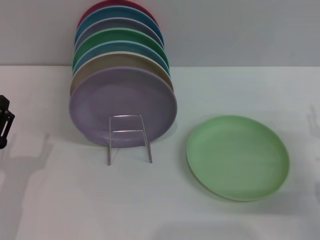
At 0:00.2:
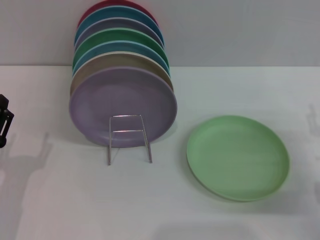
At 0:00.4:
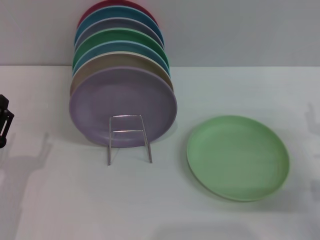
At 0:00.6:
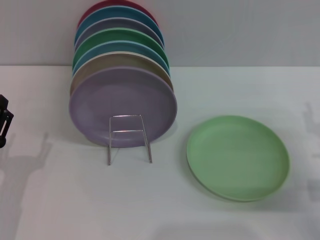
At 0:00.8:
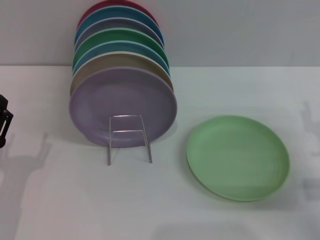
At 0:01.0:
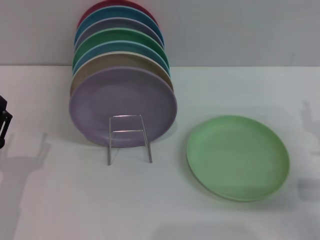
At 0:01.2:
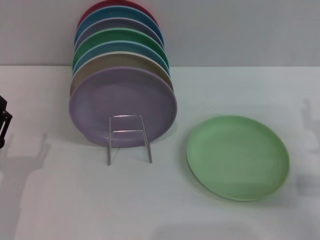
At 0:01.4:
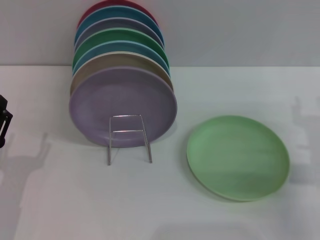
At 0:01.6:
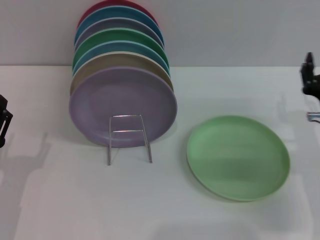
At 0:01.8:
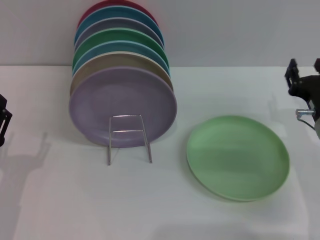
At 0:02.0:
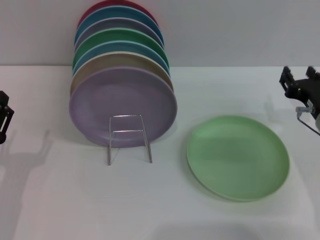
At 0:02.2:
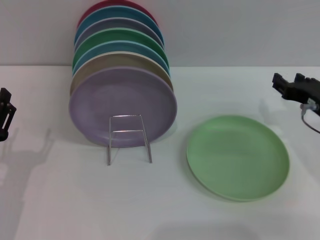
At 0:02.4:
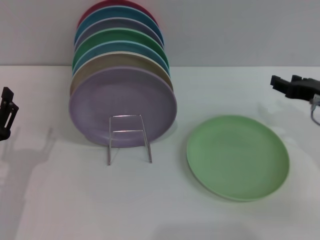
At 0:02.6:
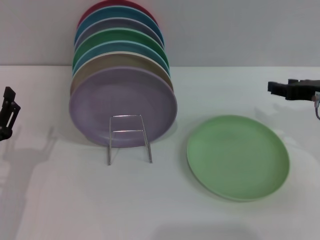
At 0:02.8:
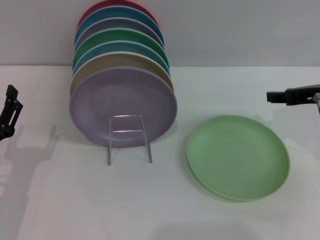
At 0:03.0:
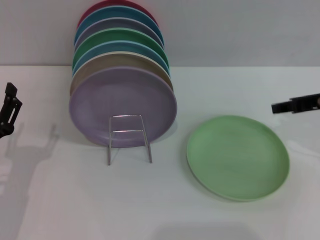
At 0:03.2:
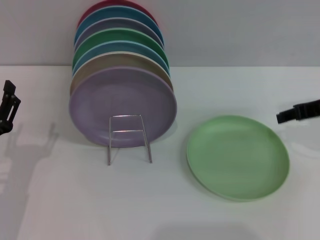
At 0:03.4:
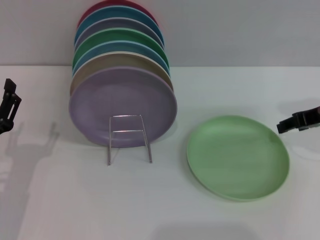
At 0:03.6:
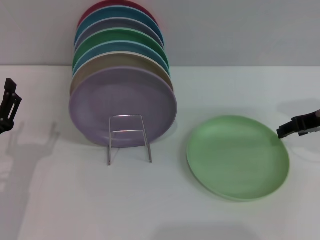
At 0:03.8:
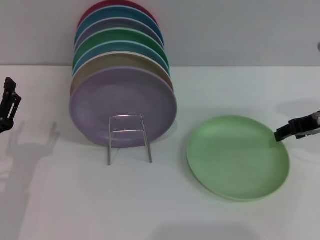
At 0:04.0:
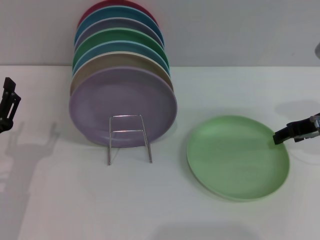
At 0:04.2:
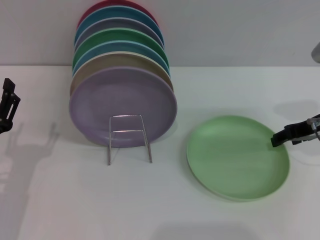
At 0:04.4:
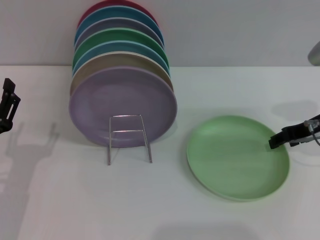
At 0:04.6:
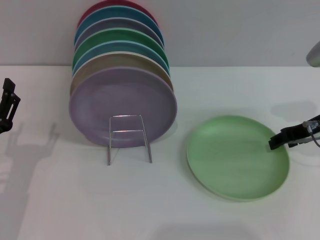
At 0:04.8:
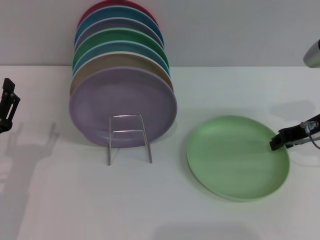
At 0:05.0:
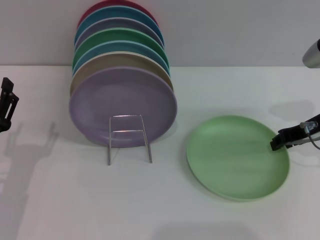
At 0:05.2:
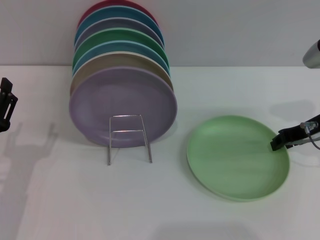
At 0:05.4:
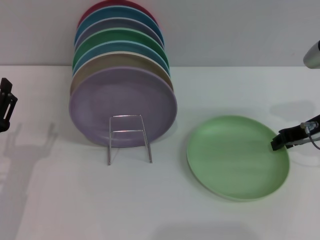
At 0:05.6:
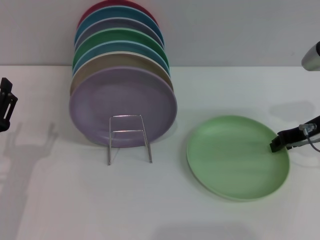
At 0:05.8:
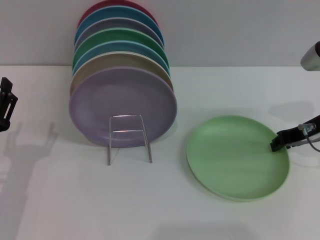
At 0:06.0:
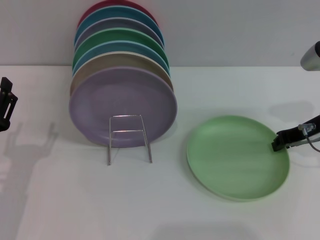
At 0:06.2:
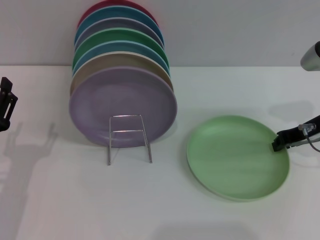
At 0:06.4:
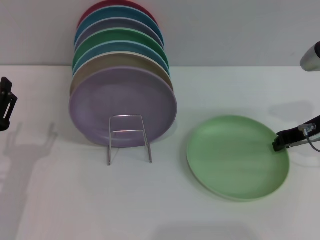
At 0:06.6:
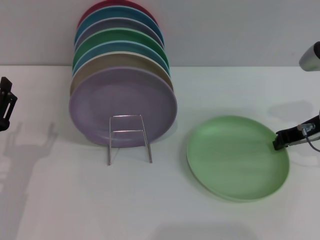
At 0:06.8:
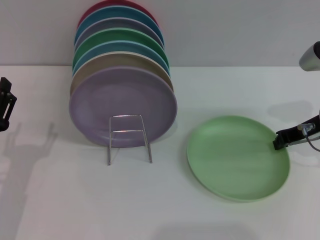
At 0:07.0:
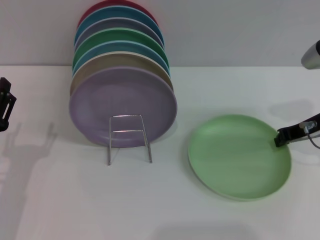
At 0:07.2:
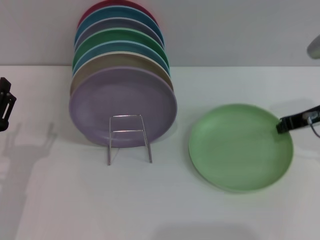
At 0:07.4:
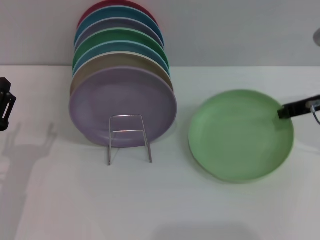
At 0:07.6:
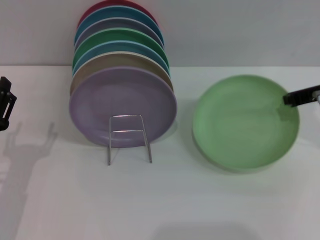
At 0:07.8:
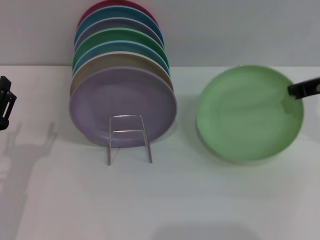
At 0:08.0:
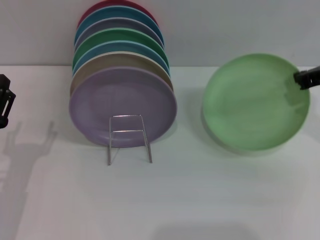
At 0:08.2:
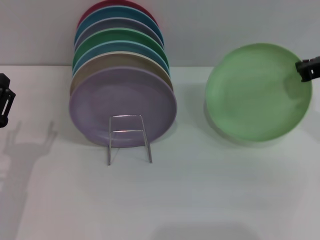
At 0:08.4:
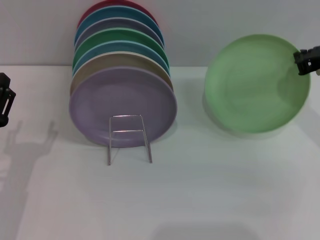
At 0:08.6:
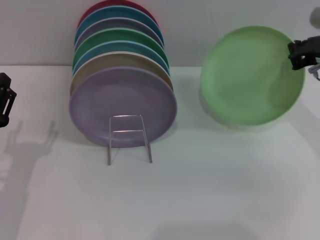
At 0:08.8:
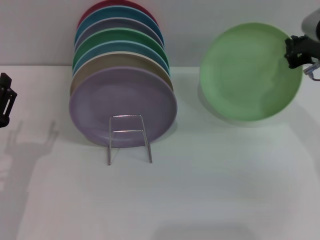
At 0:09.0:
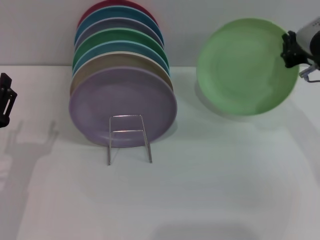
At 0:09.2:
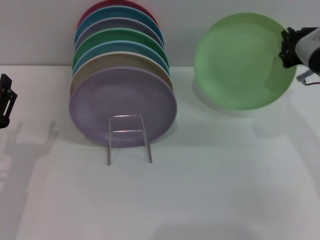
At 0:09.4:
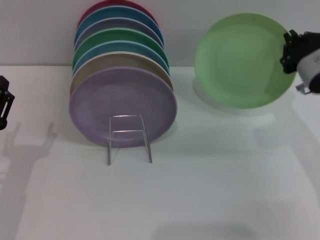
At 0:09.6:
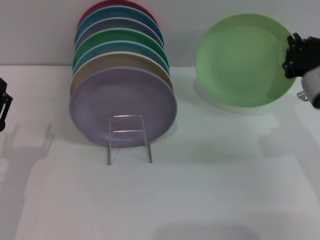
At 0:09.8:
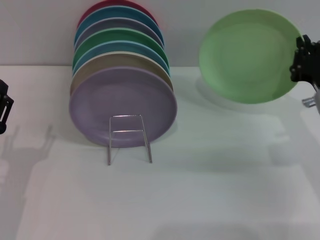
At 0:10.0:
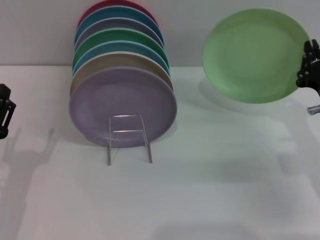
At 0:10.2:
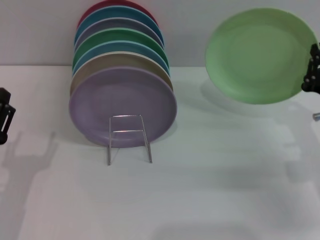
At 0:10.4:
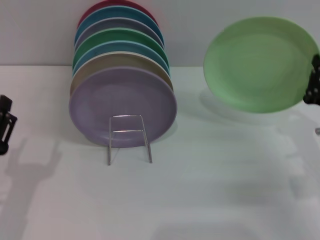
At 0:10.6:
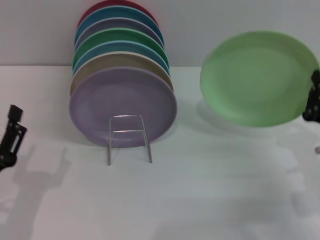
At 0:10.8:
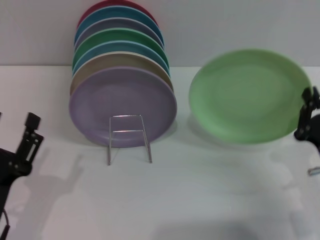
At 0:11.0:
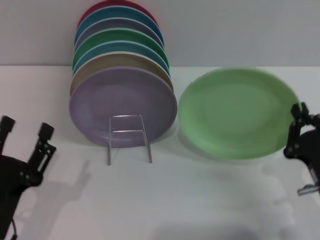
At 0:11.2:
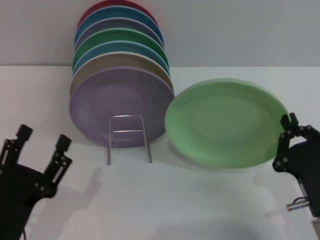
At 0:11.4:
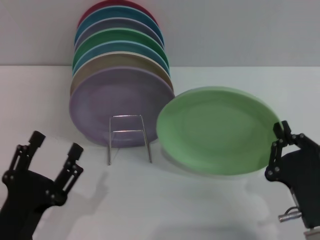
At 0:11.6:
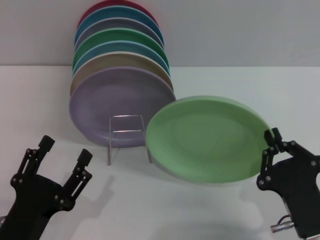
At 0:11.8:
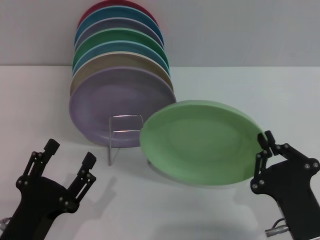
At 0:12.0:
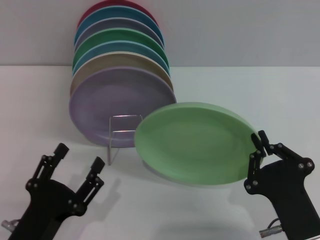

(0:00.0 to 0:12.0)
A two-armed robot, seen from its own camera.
Task of the whole recording: Grip the plate with one hand, pass it to the other, then set it on the shelf.
Step, 0:00.0 - 0:08.2: Pick up the plate with the right gripper.
0:00.0 - 0:01.6: The right gripper heads to the left, covering roughly 5 cm.
0:01.6 - 0:03.0: The right gripper heads upward, covering about 10 cm.
0:03.0 - 0:04.4: The right gripper changes place by about 5 cm.
0:04.4 - 0:06.0: The right gripper closes.
0:06.0 - 0:07.6: The right gripper heads upward, covering some 5 cm, and closes up.
0:09.0 - 0:10.4: The right gripper heads downward and backward, covering approximately 15 cm.
0:10.4 - 0:12.0: The left gripper heads to the right, covering some 5 cm. Meanwhile the right gripper travels backward and to the left by roughly 15 cm.

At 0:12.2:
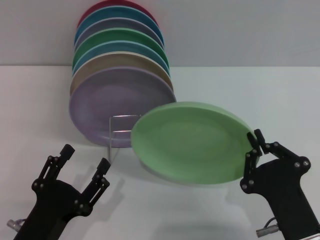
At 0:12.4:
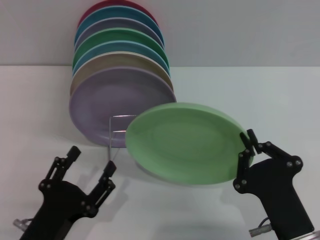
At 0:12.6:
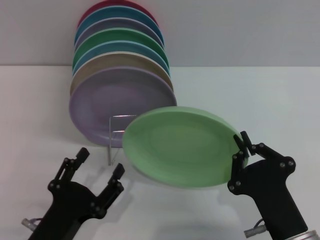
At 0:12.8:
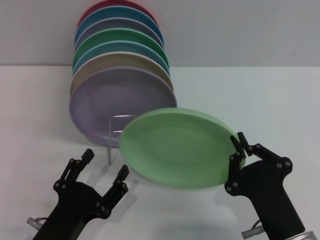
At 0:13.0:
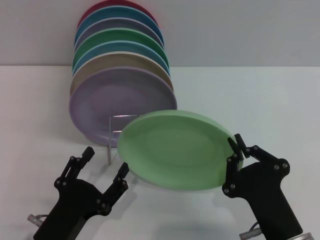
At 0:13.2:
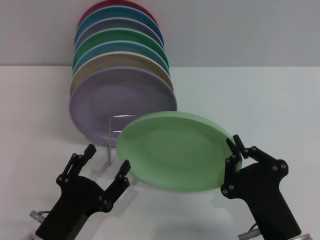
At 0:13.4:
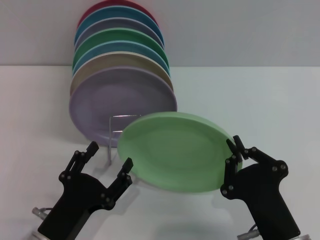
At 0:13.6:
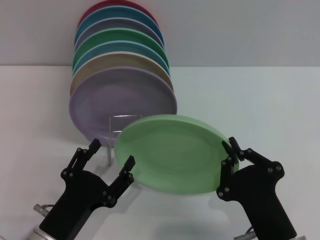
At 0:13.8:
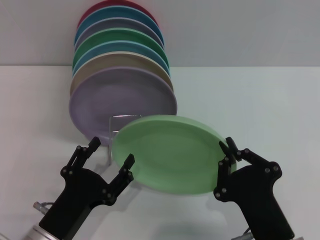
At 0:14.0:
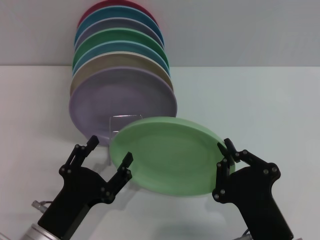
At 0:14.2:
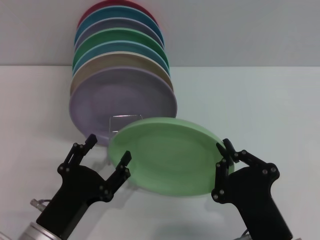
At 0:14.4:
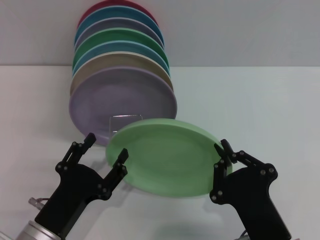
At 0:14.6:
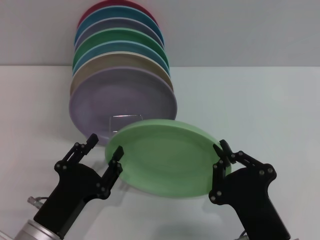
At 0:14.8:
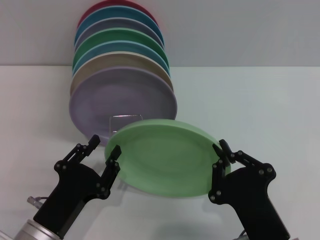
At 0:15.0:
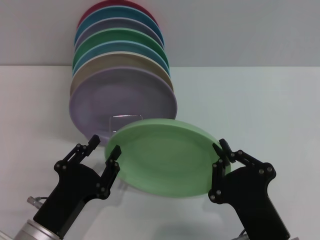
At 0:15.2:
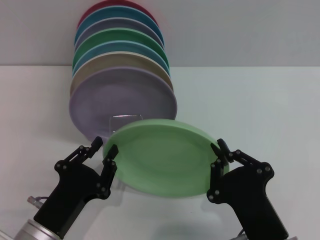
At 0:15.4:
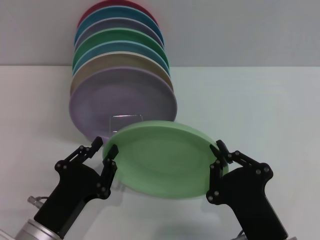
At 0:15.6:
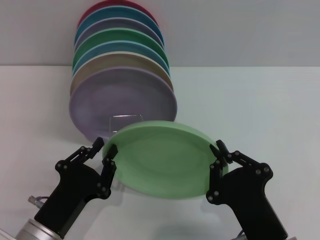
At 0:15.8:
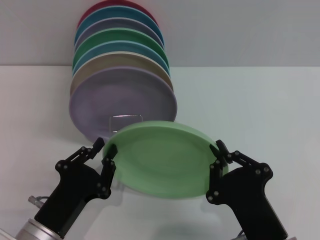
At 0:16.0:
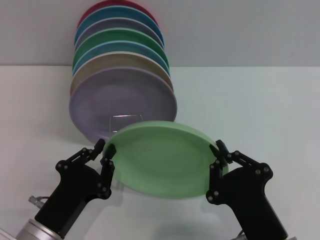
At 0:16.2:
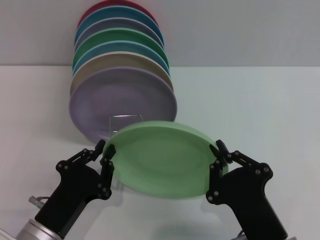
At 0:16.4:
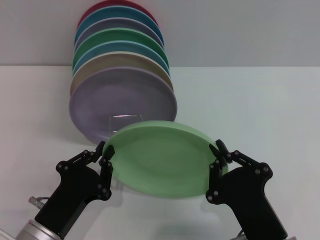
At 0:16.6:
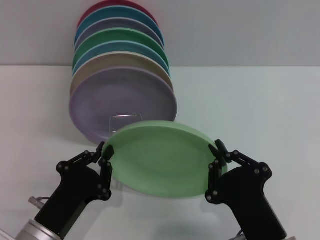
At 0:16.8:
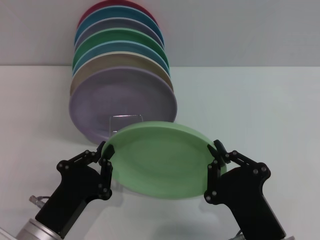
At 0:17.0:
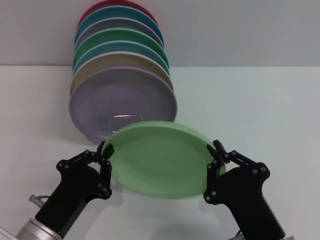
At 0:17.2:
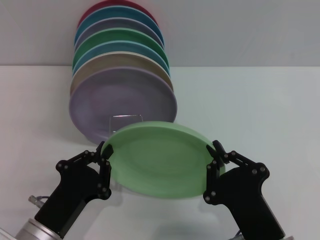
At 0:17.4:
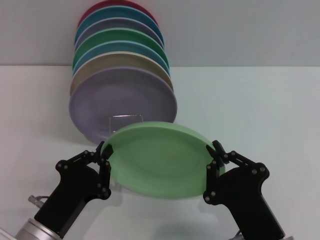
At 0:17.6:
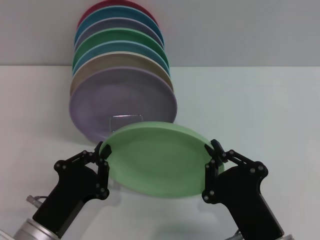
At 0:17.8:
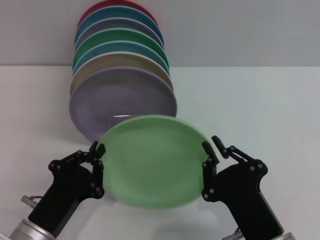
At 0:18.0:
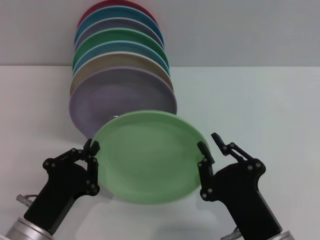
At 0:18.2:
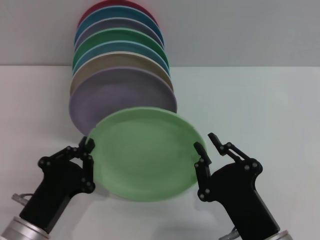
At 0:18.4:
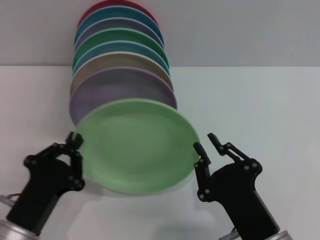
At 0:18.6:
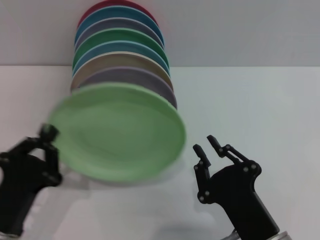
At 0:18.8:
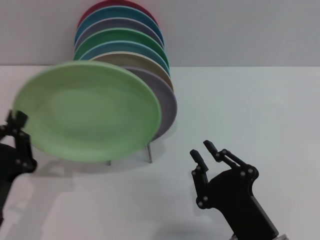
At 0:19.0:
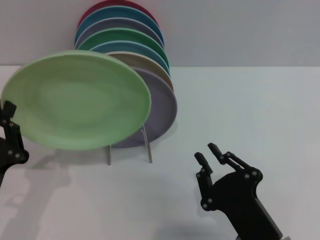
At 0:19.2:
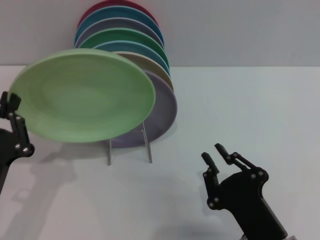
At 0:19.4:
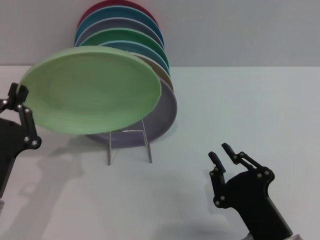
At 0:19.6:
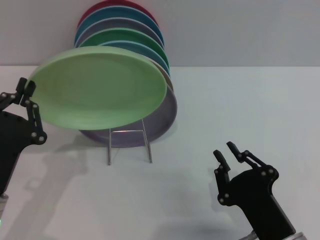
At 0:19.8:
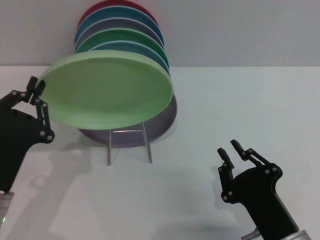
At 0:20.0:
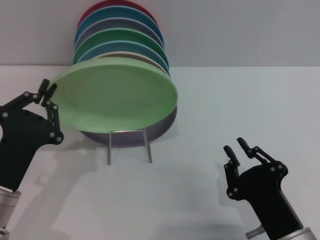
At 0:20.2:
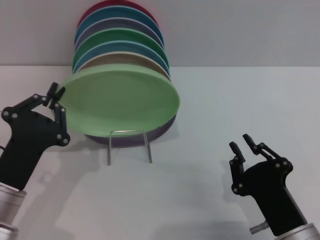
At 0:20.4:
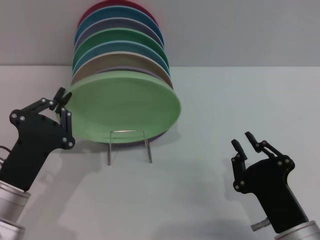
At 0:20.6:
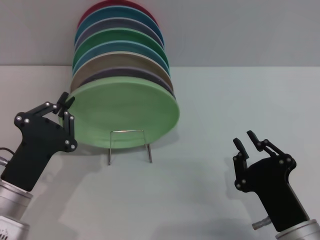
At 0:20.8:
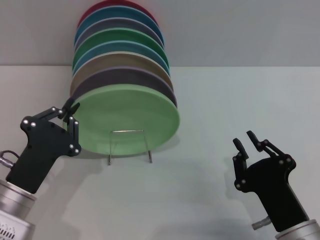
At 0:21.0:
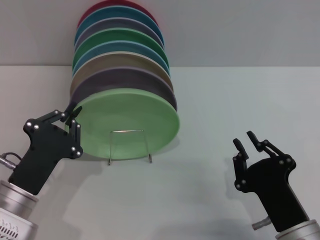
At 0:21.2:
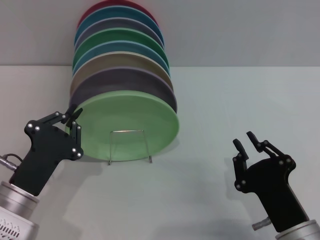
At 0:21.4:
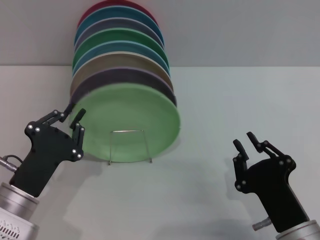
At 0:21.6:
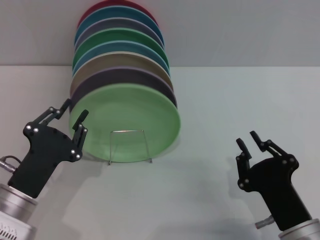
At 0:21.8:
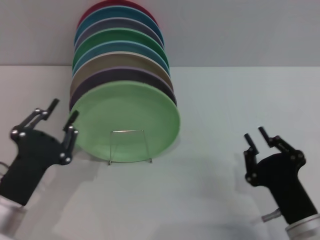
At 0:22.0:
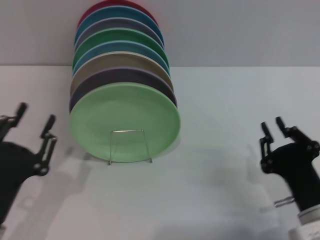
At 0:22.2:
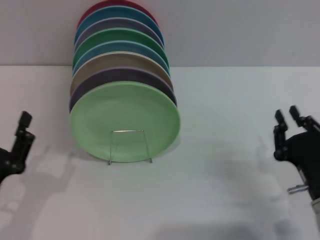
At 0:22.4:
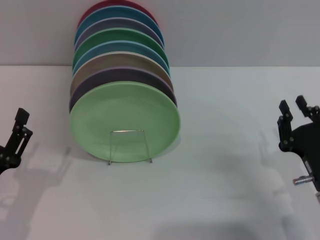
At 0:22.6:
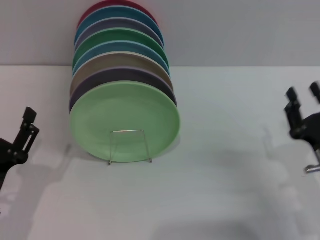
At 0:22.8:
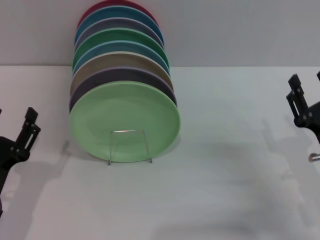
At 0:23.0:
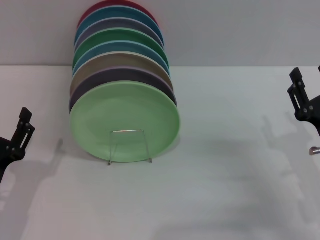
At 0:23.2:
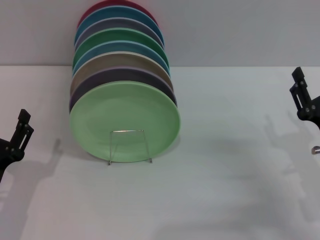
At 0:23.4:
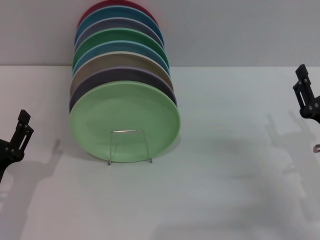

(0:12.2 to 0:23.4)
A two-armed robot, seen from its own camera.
Task of the whole recording: Grip the plate with one hand, pass it to the other, then set it on the shelf.
Step, 0:12.2 - 0:18.4: Pass the plate from the right gripper to the left gripper.
Step, 0:18.6 - 0:22.2: Place the plate on the shelf with the left gripper.
0:13.8 - 0:15.4: The left gripper closes.
0:15.4 - 0:17.0: Both grippers stay about where they are.
0:18.6 - 0:20.2: The left gripper is displaced forward by some 5 cm.
0:20.2 - 0:21.8: The left gripper opens up.
0:21.8 - 0:23.4: The right gripper is displaced to the right and forward by some 10 cm, and opens, while the left gripper opens up.
